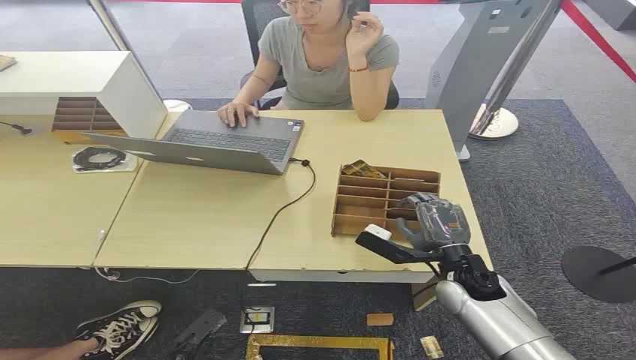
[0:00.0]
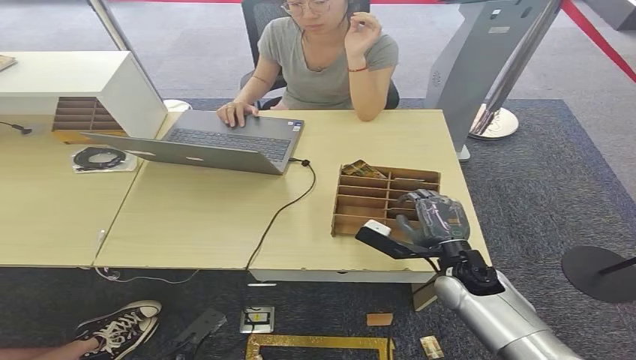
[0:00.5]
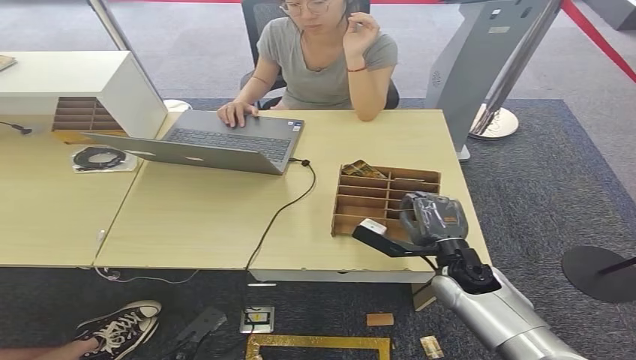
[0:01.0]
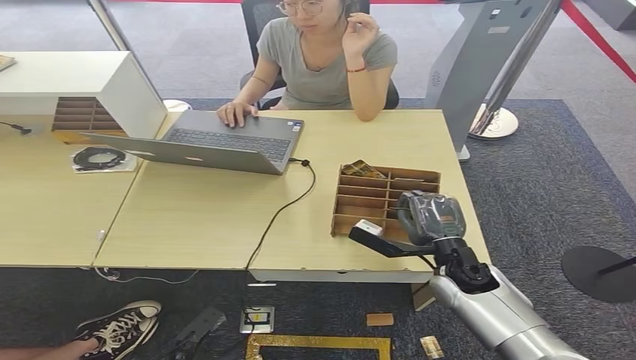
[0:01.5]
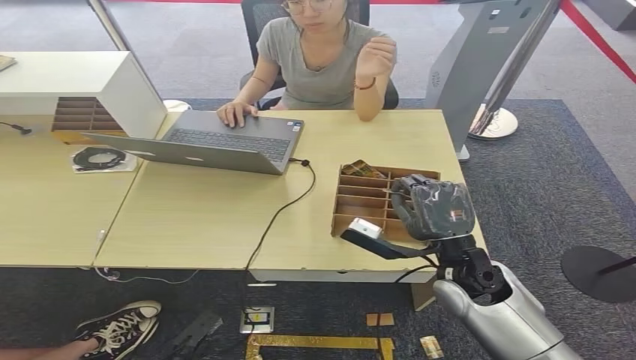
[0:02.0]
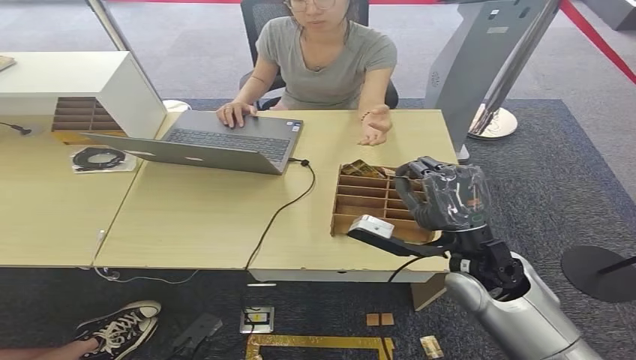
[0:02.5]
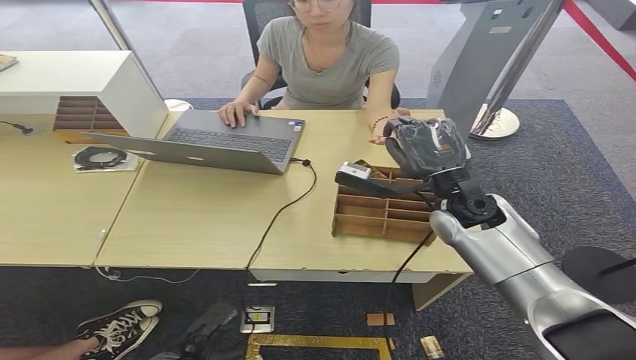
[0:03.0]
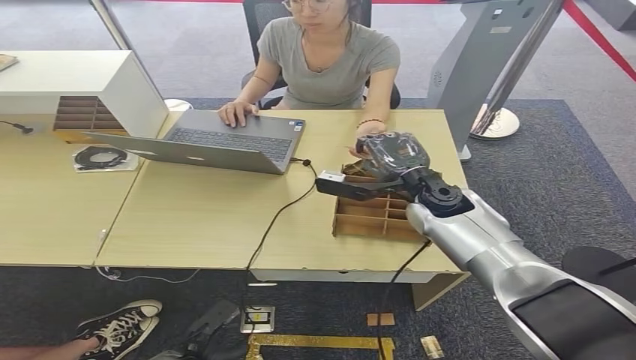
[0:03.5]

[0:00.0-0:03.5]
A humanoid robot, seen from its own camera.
Step, 0:00.0 to 0:02.0: Pick up the room card from the card holder.
Step, 0:02.5 to 0:03.5: Hand the room card to the target.
0:02.0 to 0:03.5: The right hand moves forward, roughly 15 cm.
